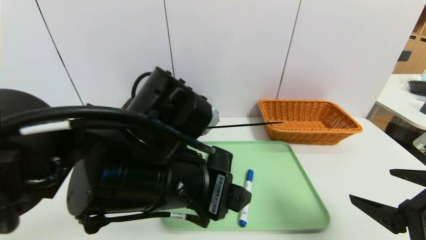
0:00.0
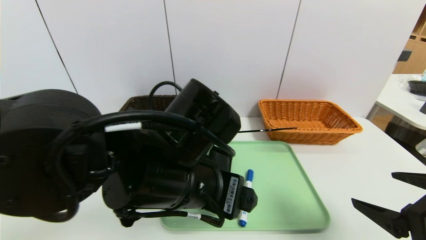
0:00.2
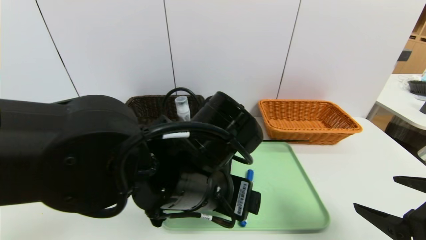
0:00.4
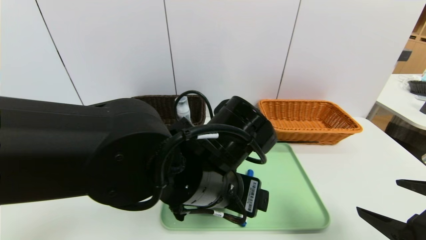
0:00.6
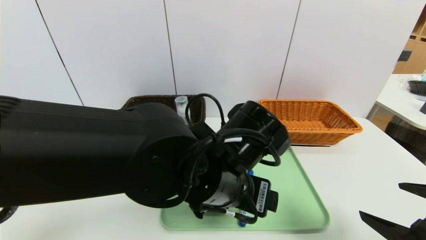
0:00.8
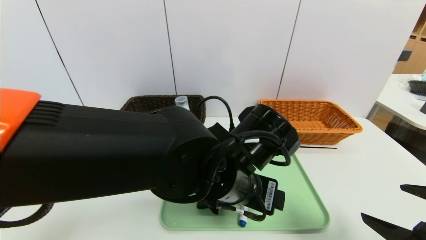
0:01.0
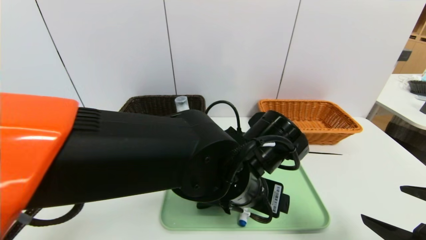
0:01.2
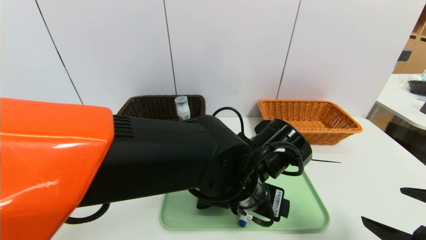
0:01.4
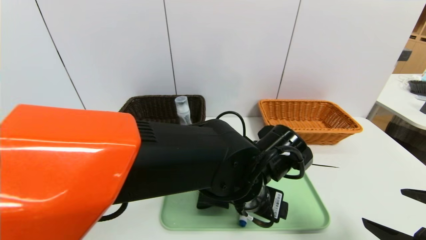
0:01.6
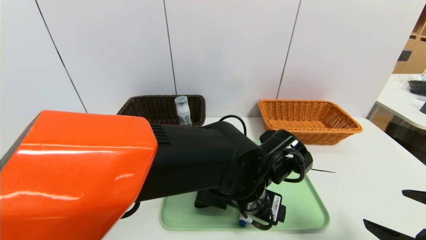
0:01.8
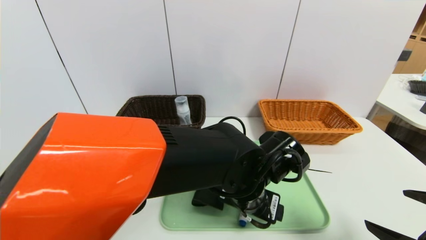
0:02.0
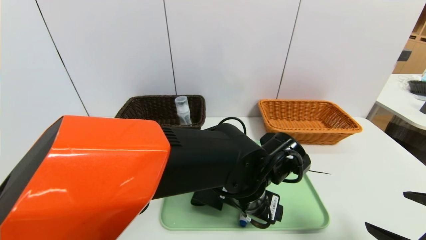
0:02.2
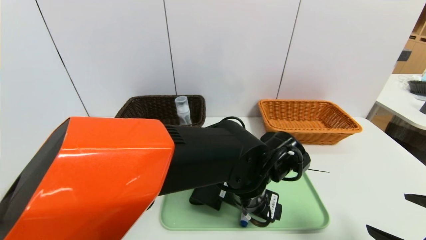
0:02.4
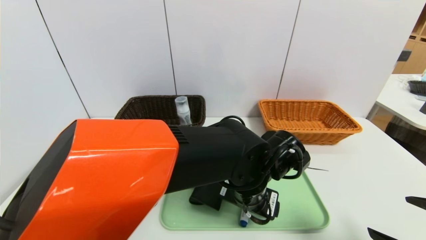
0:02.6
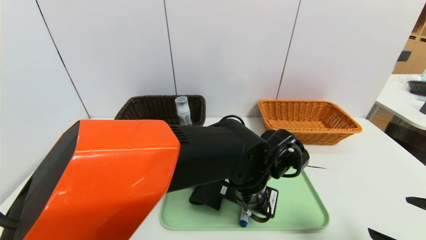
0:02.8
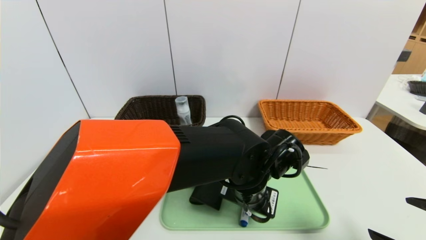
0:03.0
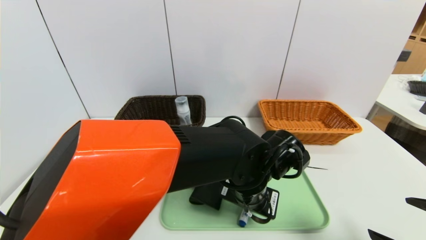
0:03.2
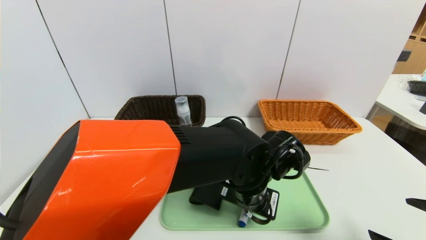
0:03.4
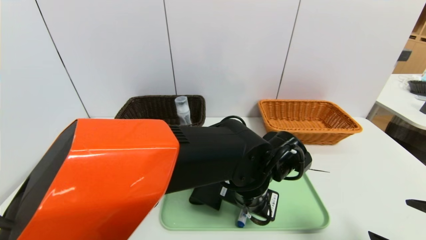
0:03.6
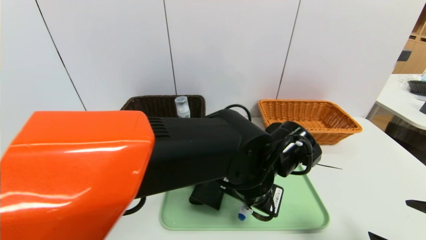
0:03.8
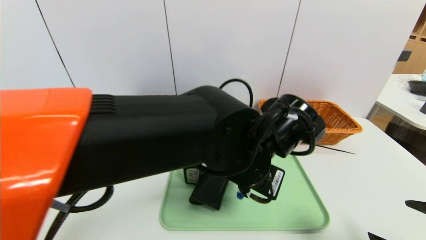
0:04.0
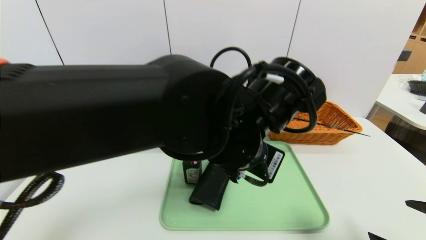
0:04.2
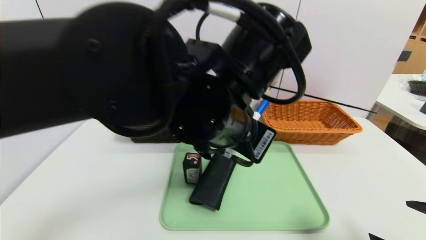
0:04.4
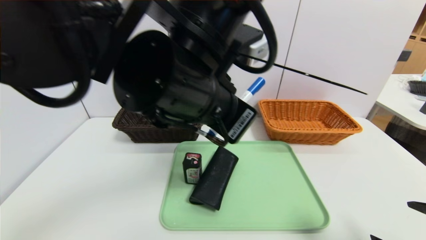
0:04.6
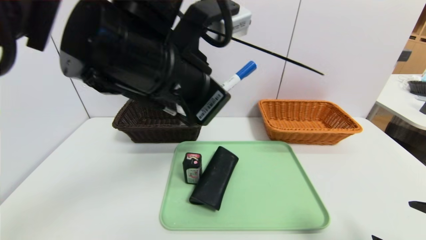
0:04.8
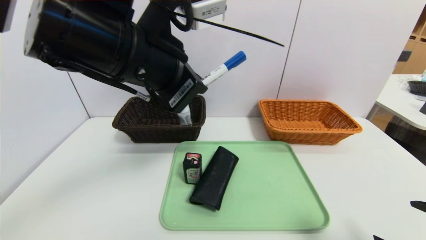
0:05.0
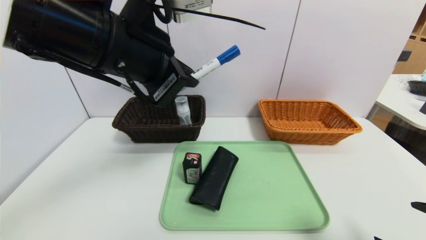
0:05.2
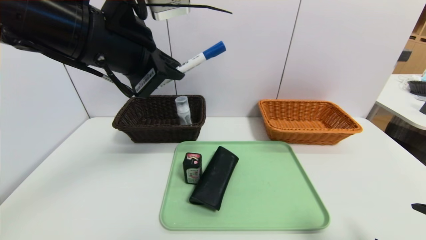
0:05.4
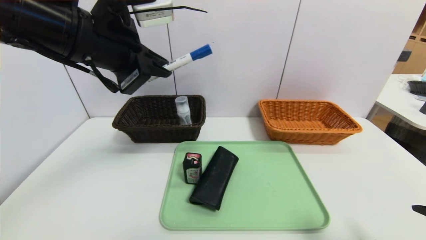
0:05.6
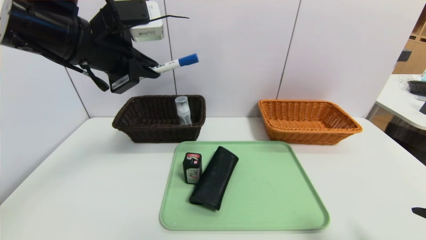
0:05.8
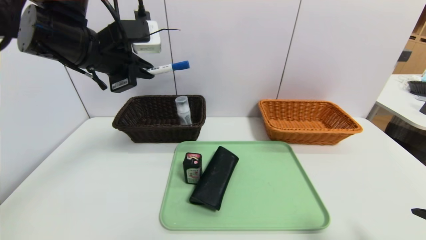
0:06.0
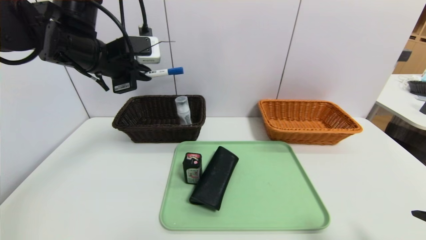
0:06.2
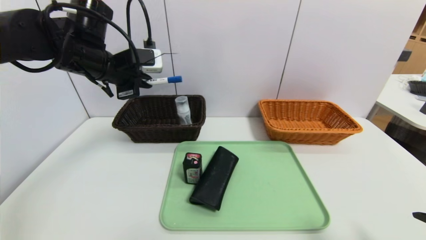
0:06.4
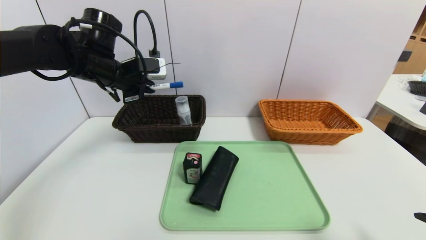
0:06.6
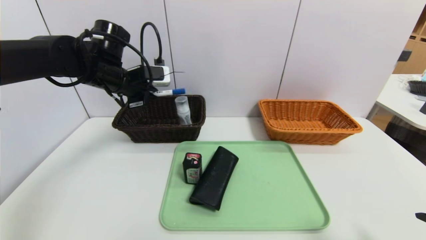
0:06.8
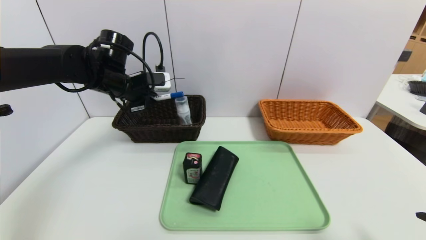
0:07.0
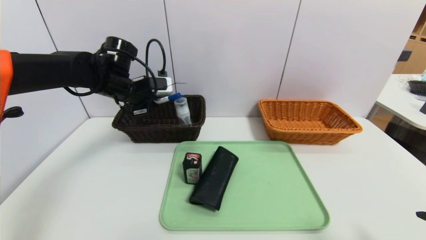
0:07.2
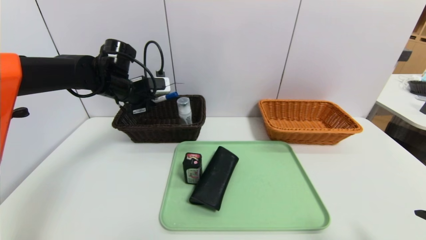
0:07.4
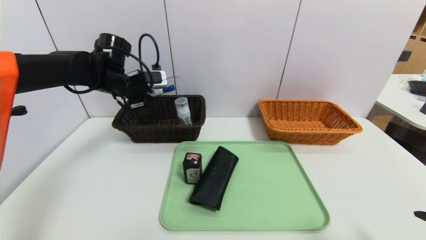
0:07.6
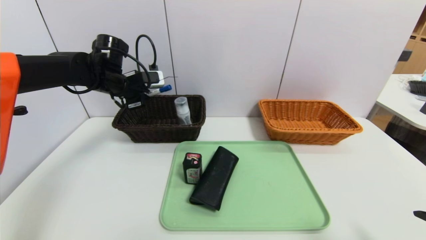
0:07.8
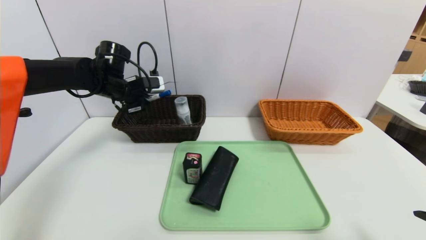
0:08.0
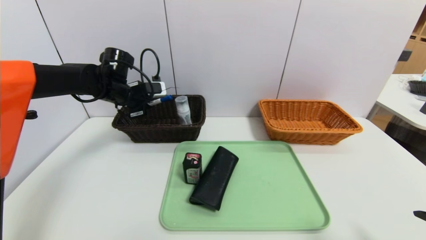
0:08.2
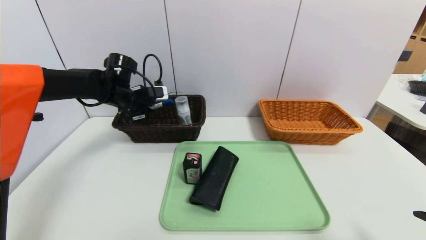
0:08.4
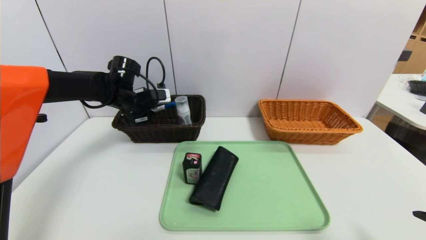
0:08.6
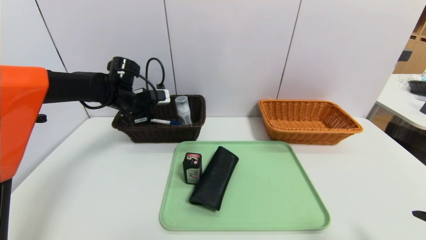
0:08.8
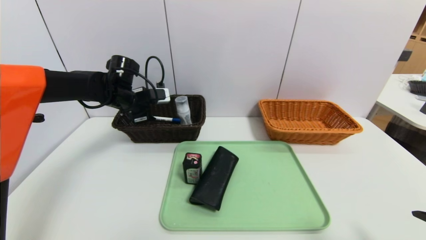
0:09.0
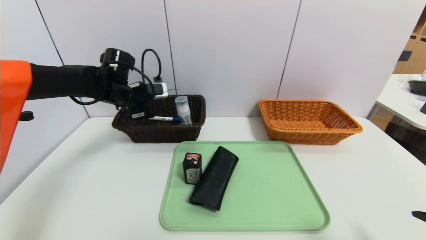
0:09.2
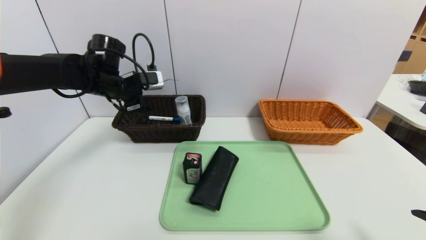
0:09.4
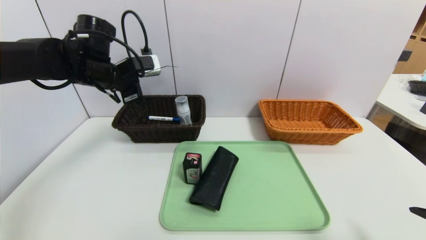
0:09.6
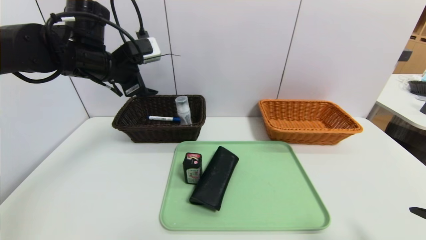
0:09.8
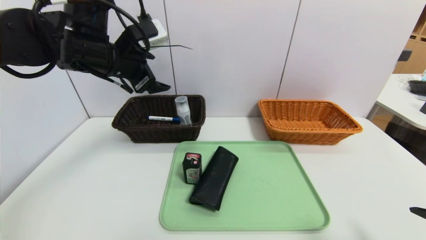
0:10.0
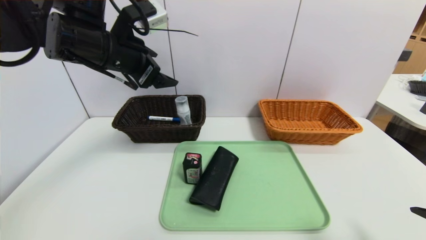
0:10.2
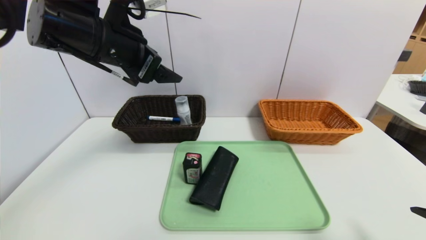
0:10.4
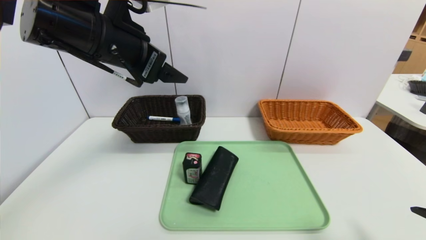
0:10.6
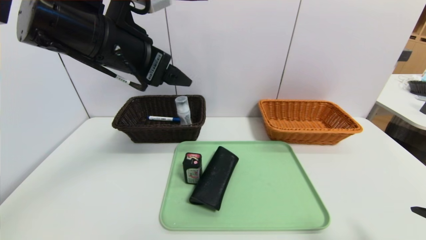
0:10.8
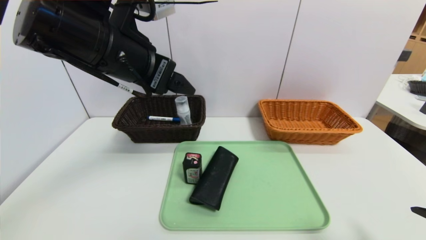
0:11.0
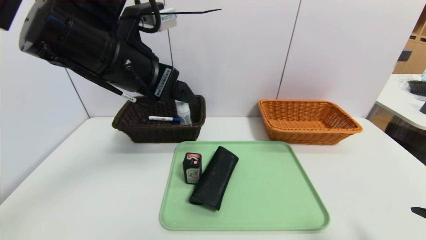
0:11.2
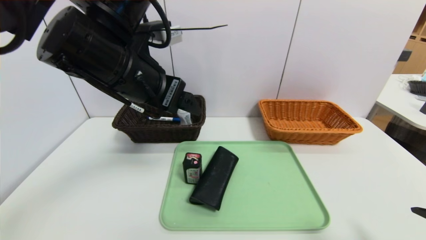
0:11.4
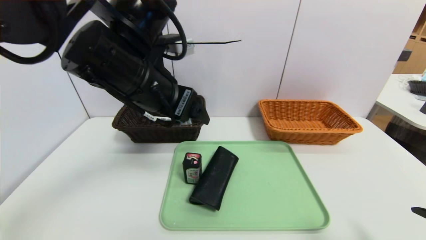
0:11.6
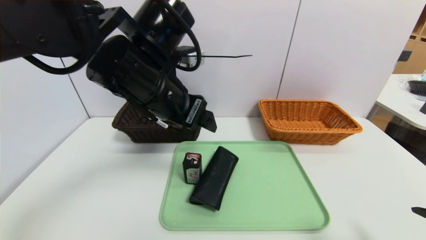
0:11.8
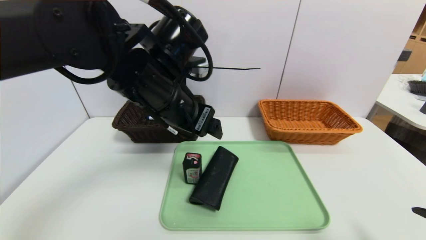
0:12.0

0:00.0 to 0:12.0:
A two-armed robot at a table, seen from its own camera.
Task of the whole recording: place the food in the right basket with the right gripper, and place the non food items in the left basket with the left gripper.
Step, 0:00.0 to 0:08.8: Grasp the blue marker and put it in the left basket.
0:00.0 to 0:01.6: The left gripper is displaced to the right and downward by some 15 cm.
0:01.6 to 0:03.0: The left gripper closes its fingers.
0:03.0 to 0:04.4: The left gripper heads upward and to the left, covering about 15 cm, and closes up.
0:04.4 to 0:06.0: The left gripper is displaced to the left and forward by approximately 20 cm.
0:06.0 to 0:07.6: The left gripper travels forward and downward by some 15 cm.
0:07.6 to 0:09.0: The left gripper opens its fingers.
0:09.0 to 0:10.4: The left gripper is displaced upward, backward and to the right by approximately 25 cm, and opens its fingers.
0:10.4 to 0:12.0: The left gripper moves to the right and downward, roughly 10 cm.

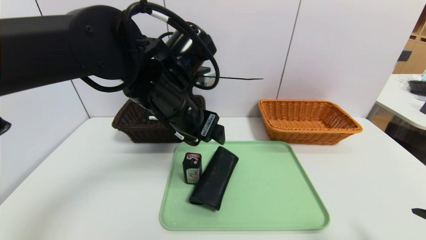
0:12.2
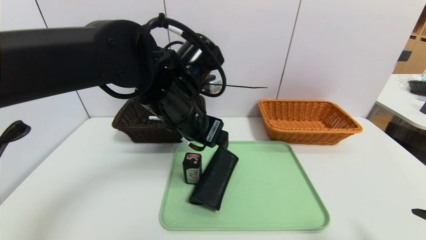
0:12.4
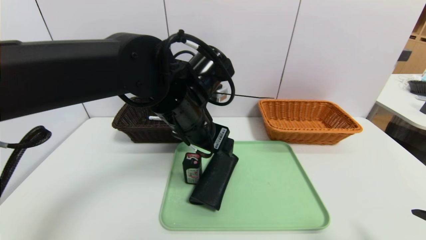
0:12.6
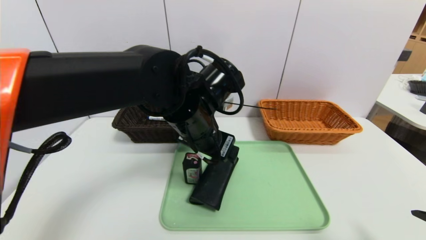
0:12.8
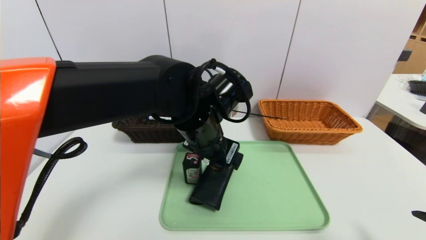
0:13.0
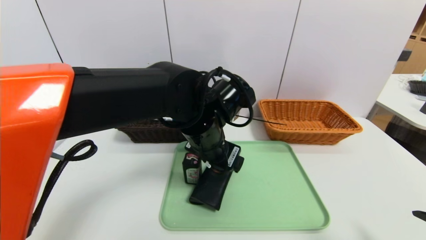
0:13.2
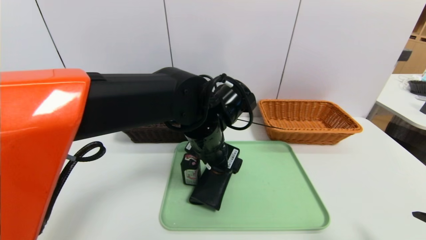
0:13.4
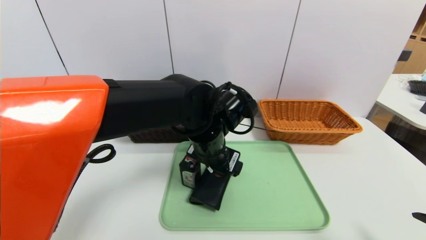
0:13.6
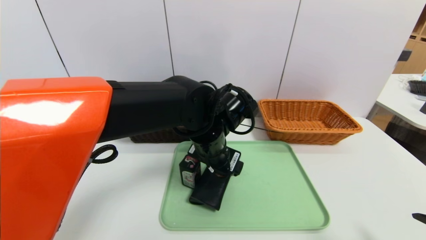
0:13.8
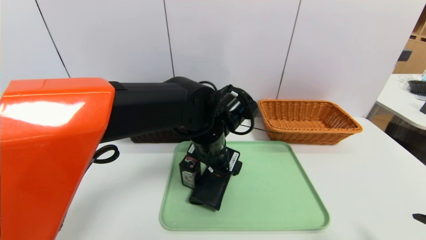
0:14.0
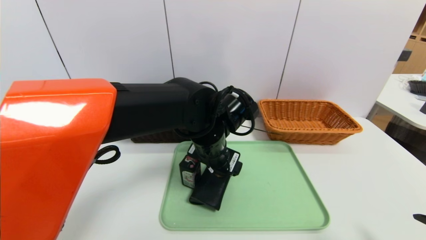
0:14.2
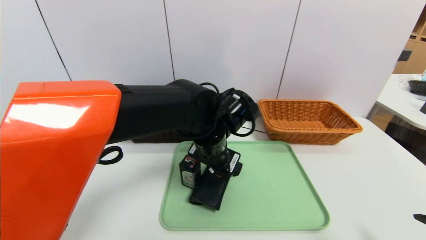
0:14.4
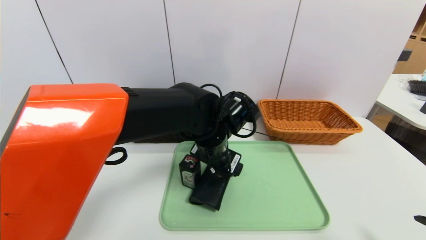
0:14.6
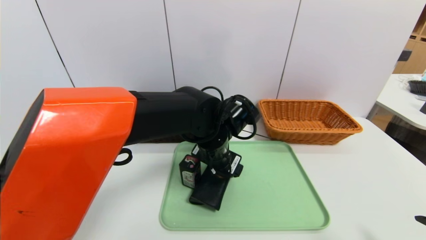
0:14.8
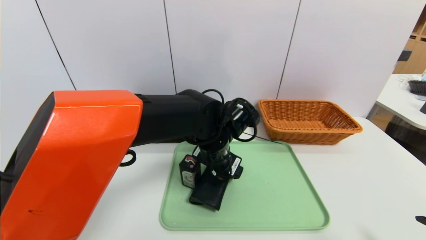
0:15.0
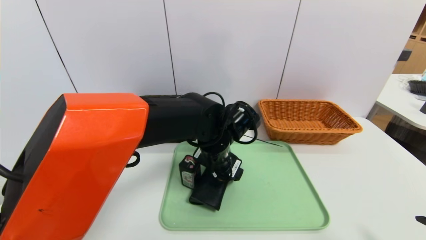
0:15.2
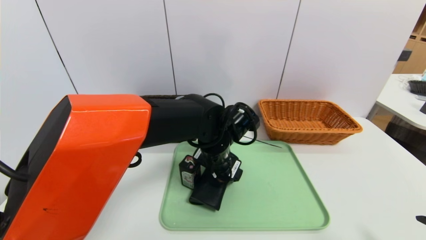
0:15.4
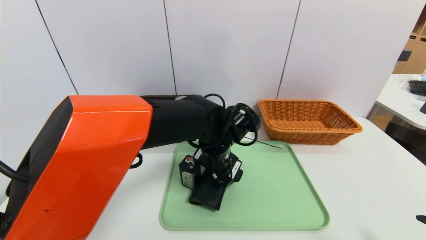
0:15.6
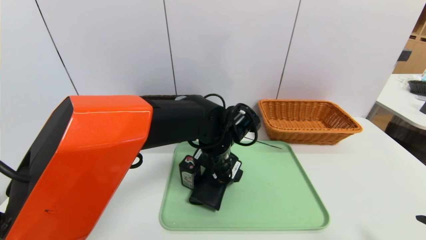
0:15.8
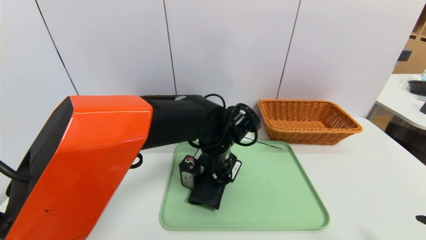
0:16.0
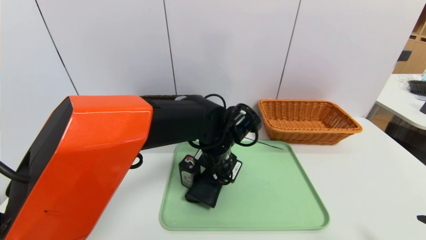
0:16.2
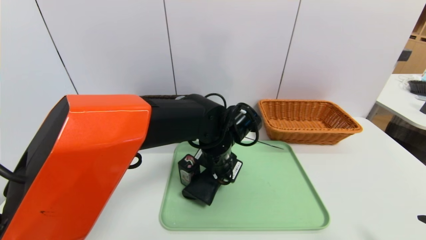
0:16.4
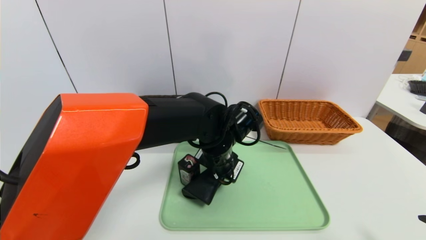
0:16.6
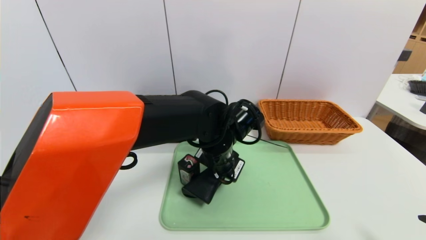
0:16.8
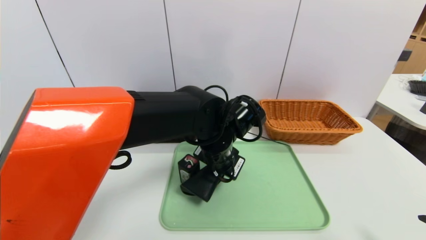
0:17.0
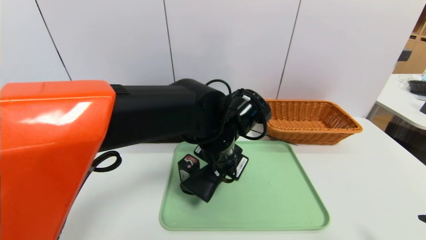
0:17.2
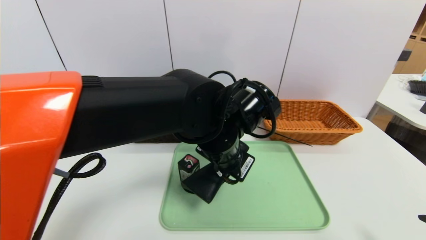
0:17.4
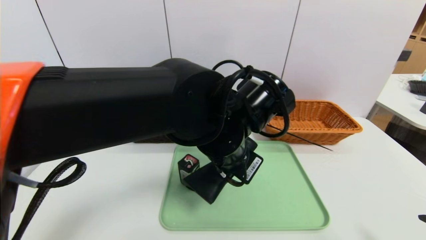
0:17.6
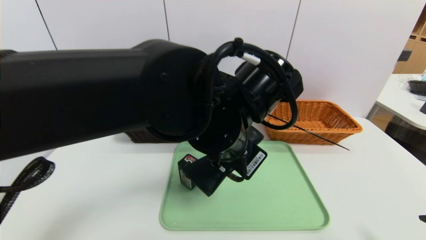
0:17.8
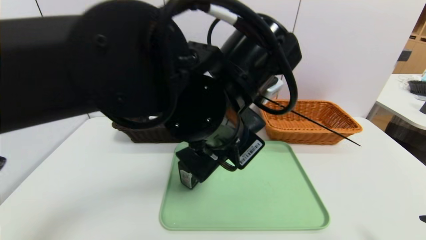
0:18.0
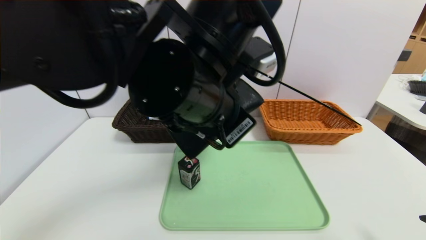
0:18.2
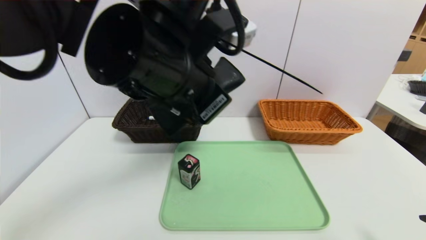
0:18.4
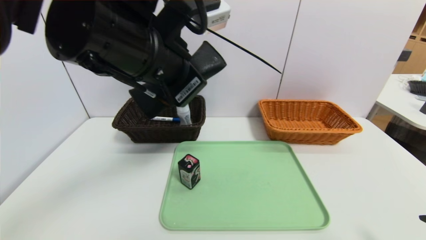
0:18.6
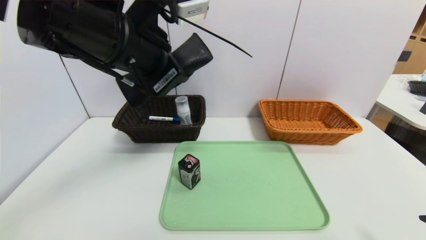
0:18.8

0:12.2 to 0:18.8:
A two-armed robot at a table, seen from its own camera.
Task of the whole recording: place the food in the right basket with the right gripper, and place the non food items in the left basket with the left gripper.
0:12.2 to 0:13.8: The left gripper goes some 10 cm downward and to the right.
0:13.8 to 0:15.4: The grippers make only small movements.
0:15.4 to 0:17.2: The left gripper changes place by roughly 5 cm, and closes its fingers.
0:17.2 to 0:18.8: The left gripper heads upward and to the left, covering approximately 20 cm.
